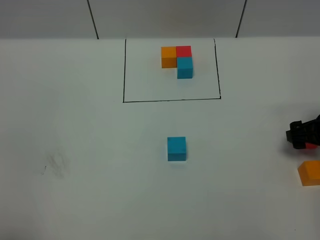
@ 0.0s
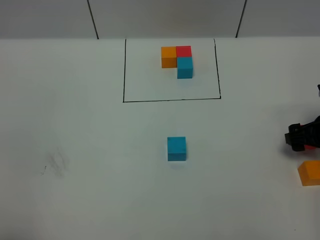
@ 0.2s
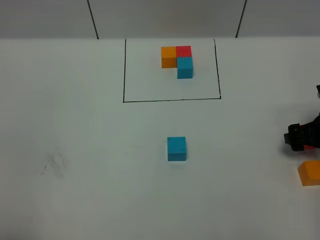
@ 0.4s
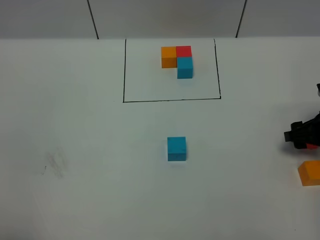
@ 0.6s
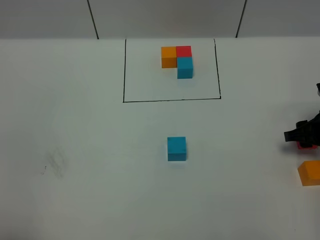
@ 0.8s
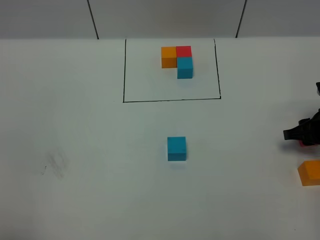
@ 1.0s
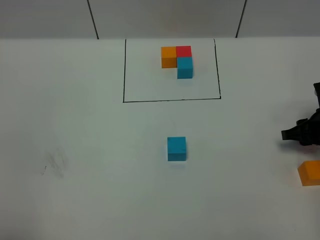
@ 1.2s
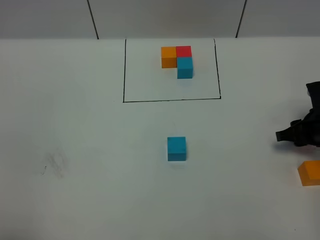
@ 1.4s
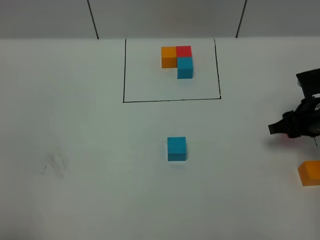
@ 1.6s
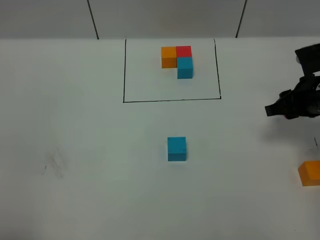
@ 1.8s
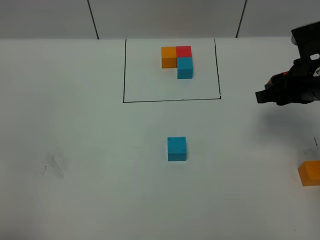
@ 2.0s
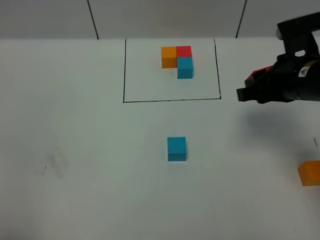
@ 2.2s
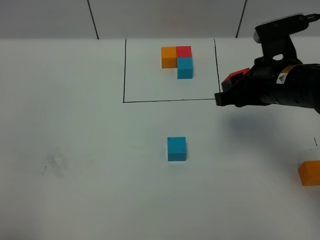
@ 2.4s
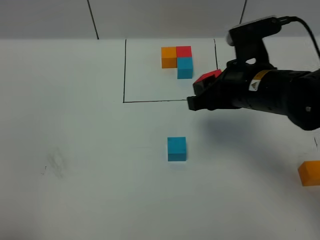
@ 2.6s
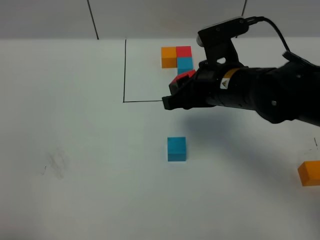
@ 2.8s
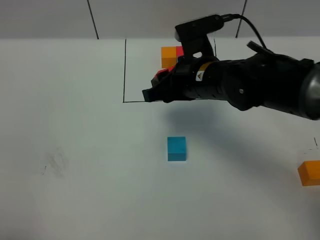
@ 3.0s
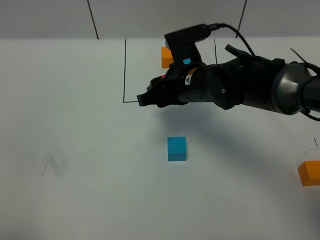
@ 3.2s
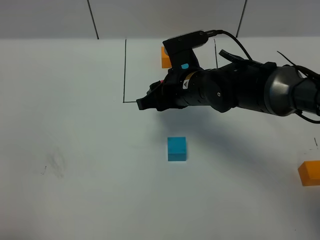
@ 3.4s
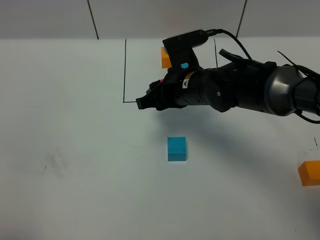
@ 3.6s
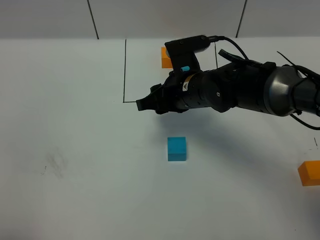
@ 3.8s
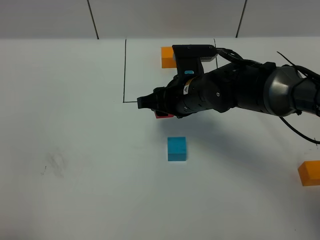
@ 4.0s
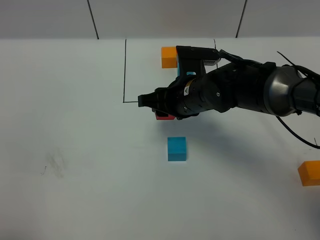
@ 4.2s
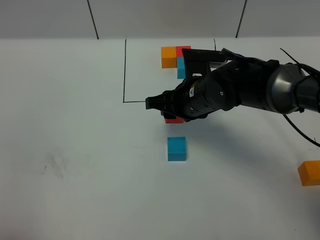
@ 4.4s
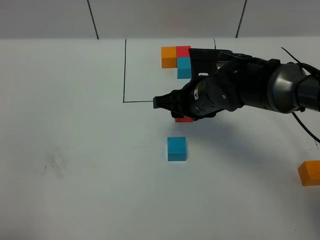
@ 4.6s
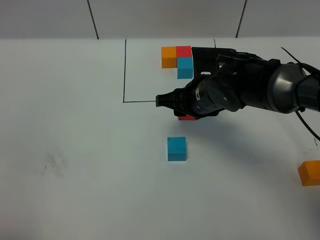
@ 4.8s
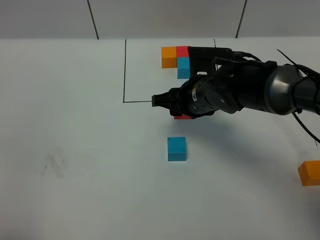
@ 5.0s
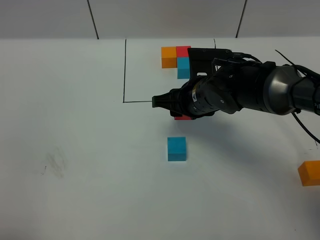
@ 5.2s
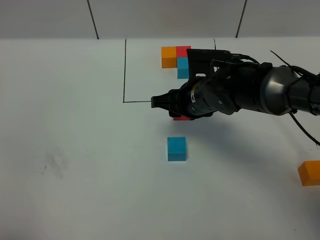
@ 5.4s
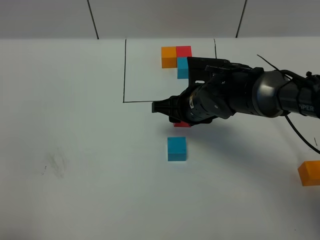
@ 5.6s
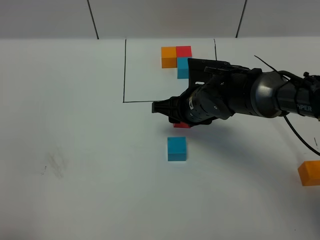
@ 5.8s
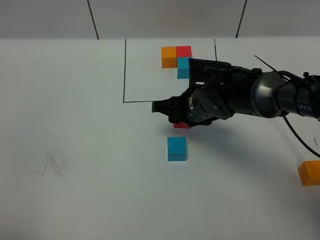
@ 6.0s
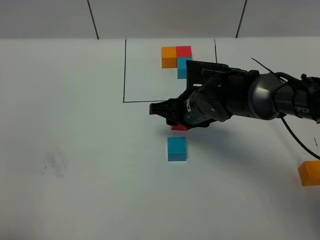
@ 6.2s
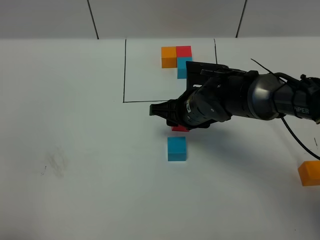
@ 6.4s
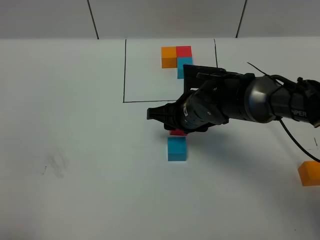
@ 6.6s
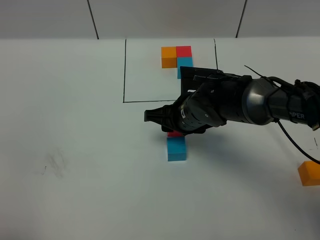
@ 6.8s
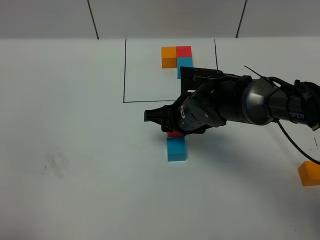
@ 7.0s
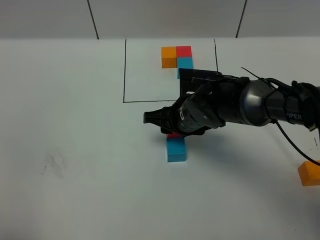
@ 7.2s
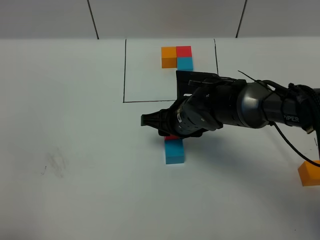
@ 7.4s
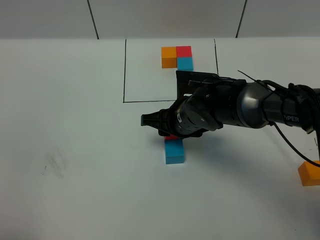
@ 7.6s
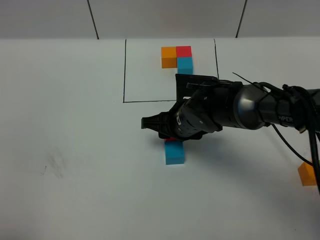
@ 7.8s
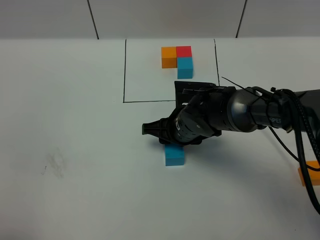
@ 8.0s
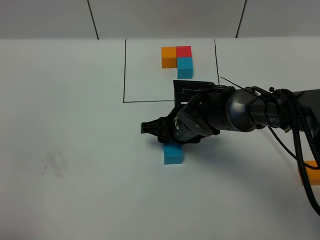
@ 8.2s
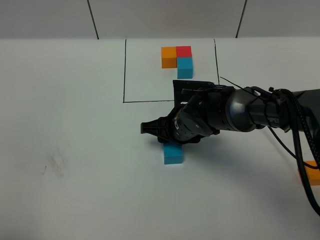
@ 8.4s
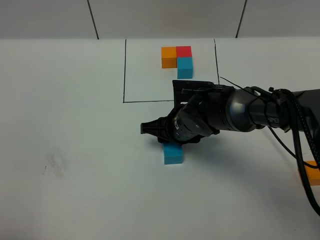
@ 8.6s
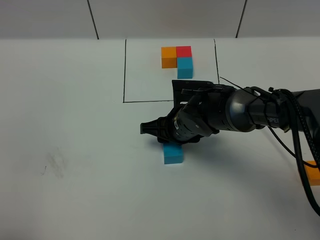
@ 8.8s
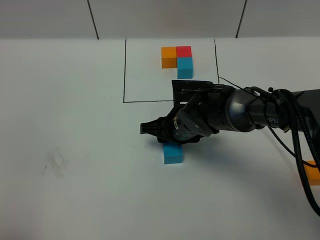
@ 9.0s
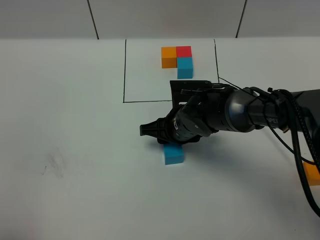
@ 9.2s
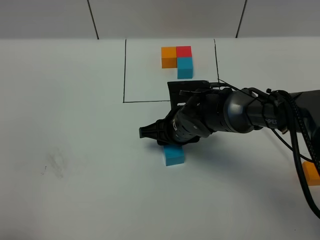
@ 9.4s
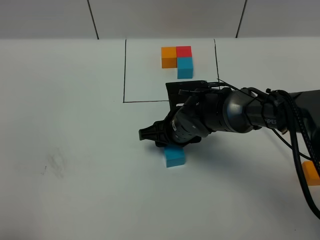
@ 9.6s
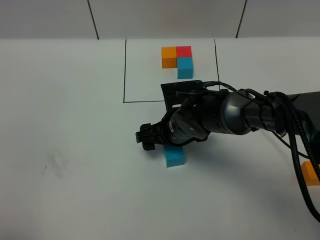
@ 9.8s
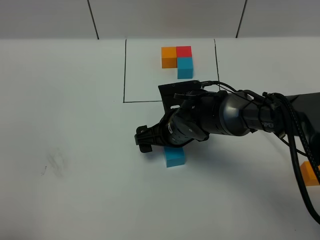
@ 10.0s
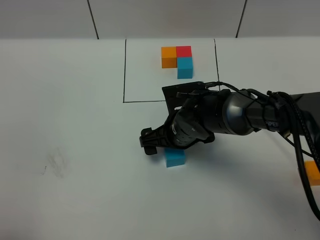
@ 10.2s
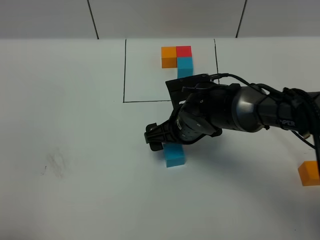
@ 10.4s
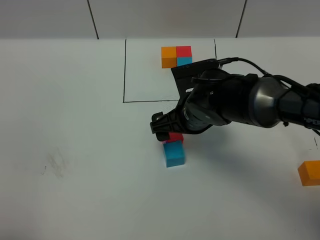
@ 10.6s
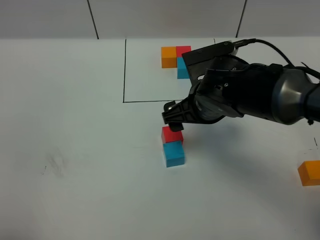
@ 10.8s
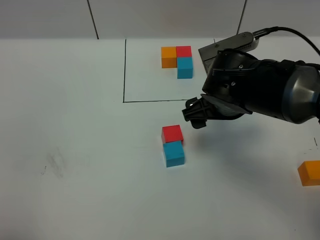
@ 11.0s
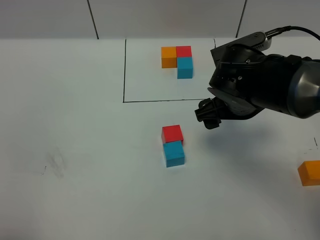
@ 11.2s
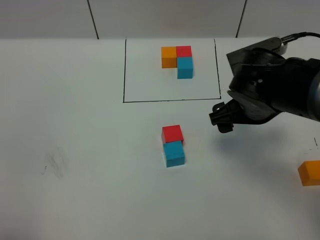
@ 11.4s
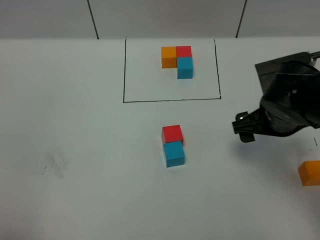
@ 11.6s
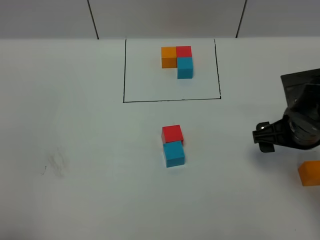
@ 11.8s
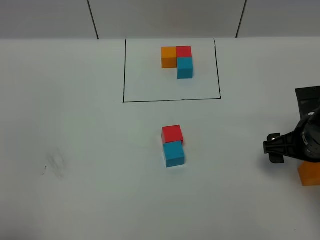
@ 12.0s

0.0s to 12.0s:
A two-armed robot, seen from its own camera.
Task of the whole recording: According to the building block template in front, assemble the scattered blocks together.
Step, 0.0s to 10.8s: Put the red cube on the behind of the blue cube.
0.0s to 1.6s: The right gripper closes its fingers.
1.6s to 3.0s: The right gripper heads to the left and upward, covering roughly 25 cm.
3.0s to 4.4s: The right gripper shifts roughly 5 cm downward.
4.4s to 7.6s: There are only small adjustments of the grippers.
7.6s to 9.0s: The grippers make only small movements.
9.0s to 10.4s: The right gripper opens up.
10.4s to 12.0s: The right gripper is displaced to the right by roughly 20 cm.

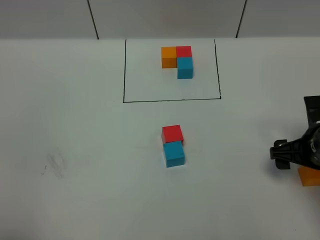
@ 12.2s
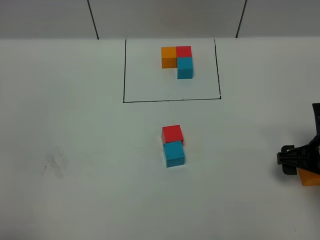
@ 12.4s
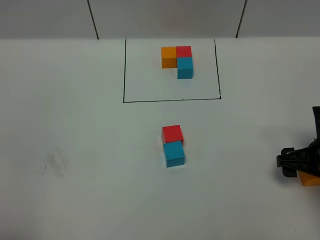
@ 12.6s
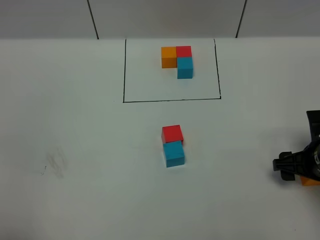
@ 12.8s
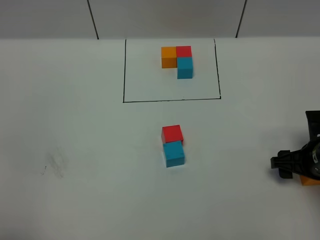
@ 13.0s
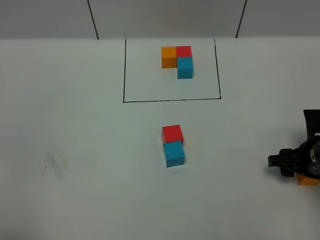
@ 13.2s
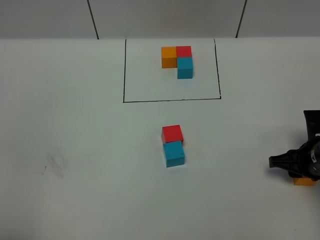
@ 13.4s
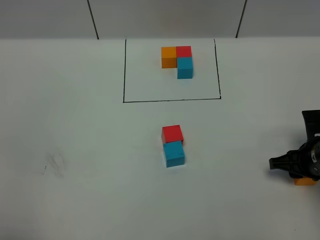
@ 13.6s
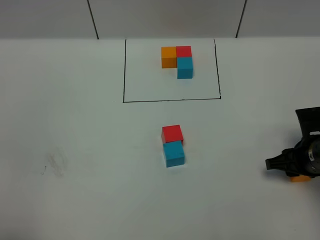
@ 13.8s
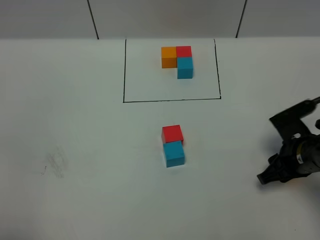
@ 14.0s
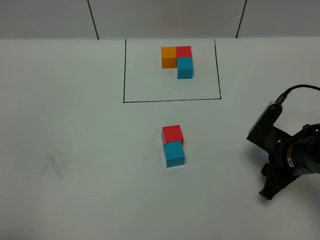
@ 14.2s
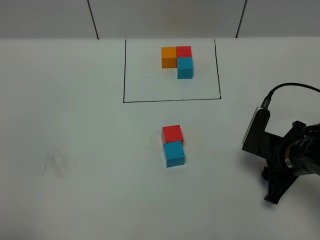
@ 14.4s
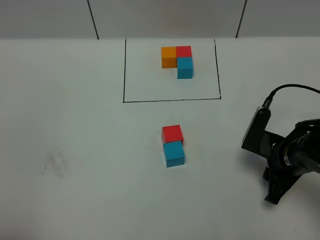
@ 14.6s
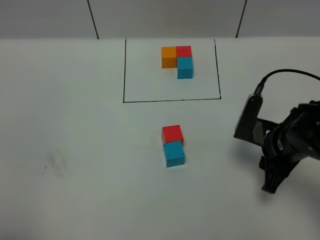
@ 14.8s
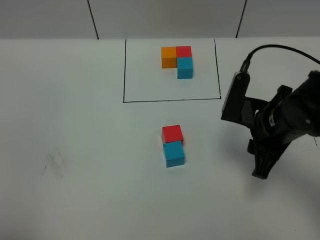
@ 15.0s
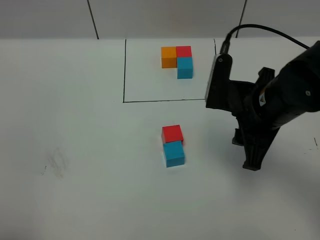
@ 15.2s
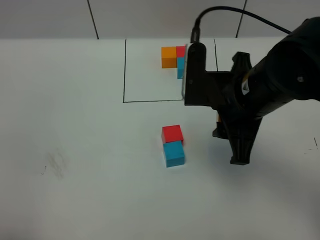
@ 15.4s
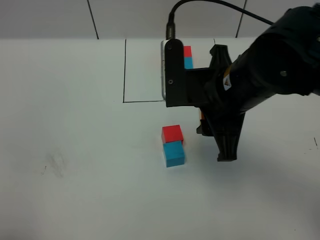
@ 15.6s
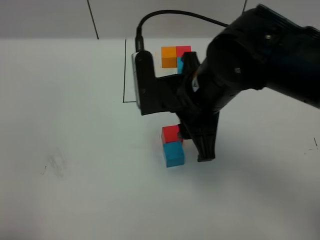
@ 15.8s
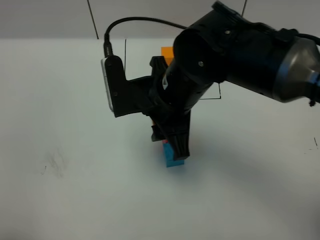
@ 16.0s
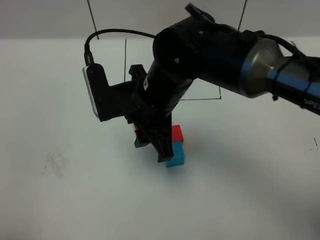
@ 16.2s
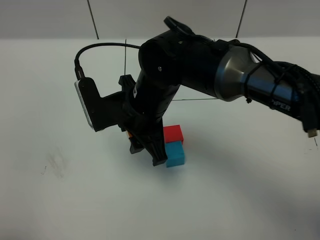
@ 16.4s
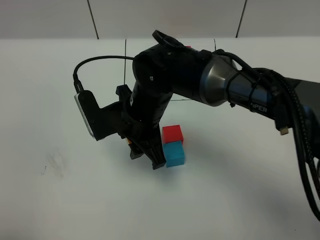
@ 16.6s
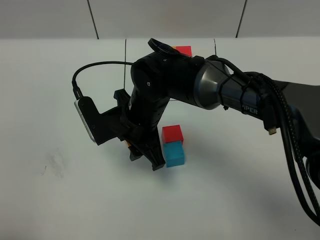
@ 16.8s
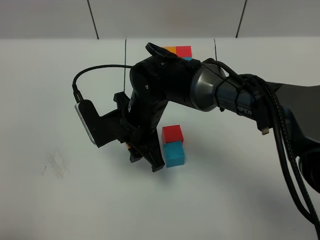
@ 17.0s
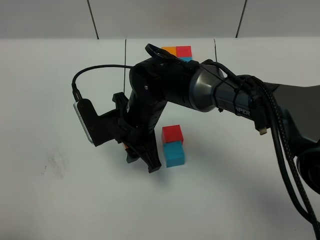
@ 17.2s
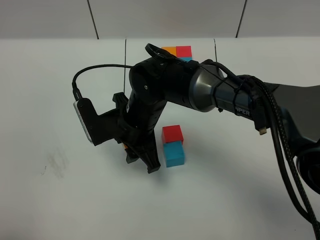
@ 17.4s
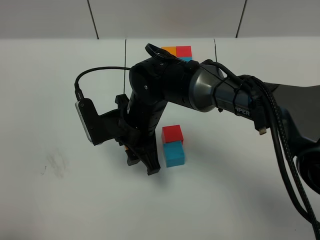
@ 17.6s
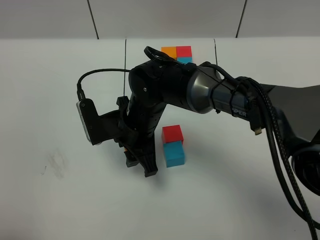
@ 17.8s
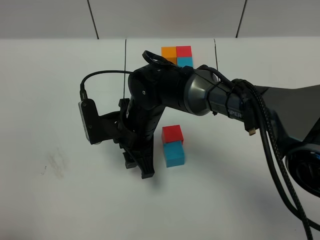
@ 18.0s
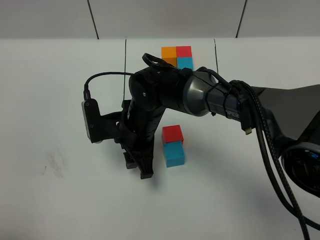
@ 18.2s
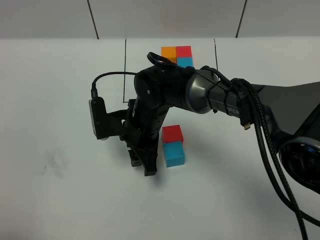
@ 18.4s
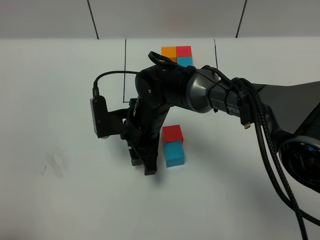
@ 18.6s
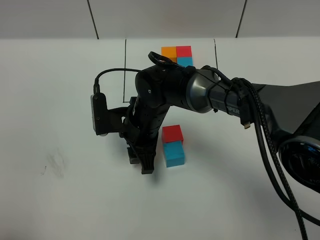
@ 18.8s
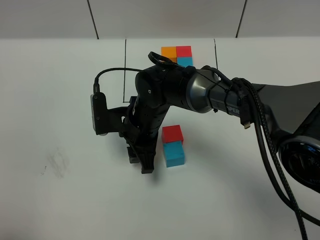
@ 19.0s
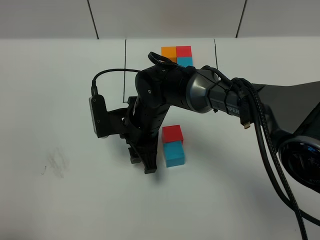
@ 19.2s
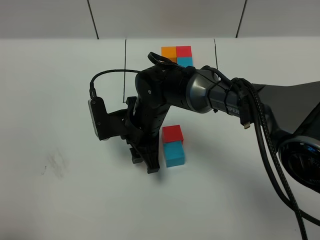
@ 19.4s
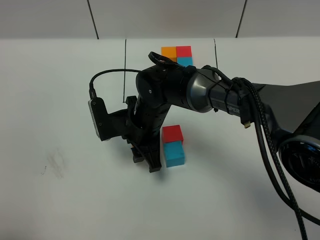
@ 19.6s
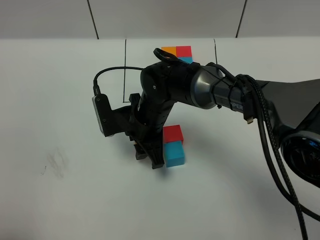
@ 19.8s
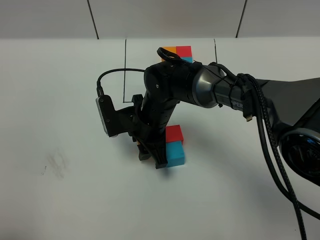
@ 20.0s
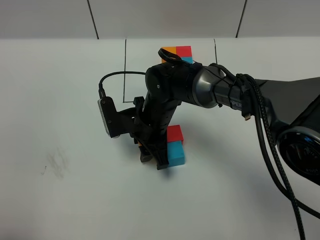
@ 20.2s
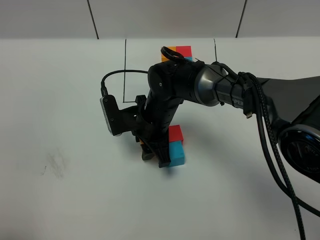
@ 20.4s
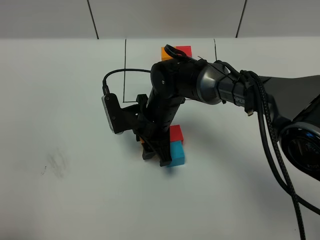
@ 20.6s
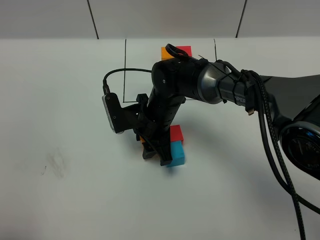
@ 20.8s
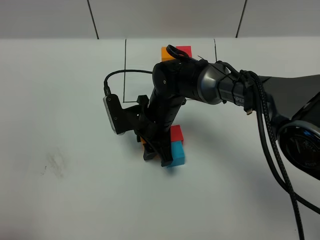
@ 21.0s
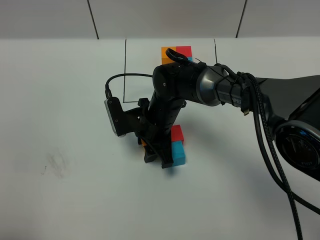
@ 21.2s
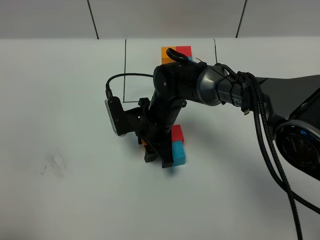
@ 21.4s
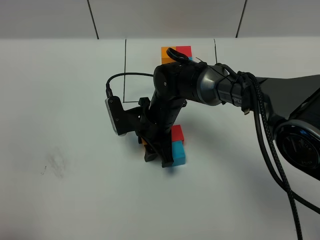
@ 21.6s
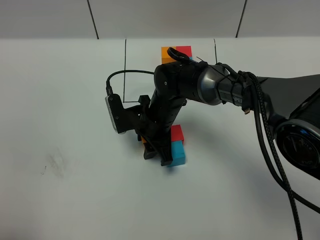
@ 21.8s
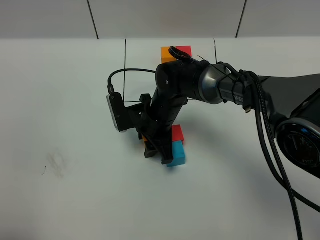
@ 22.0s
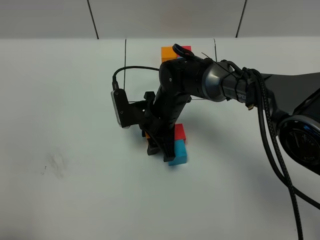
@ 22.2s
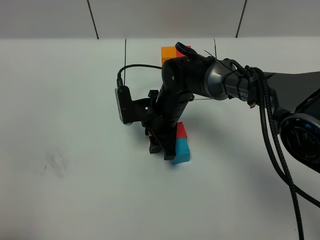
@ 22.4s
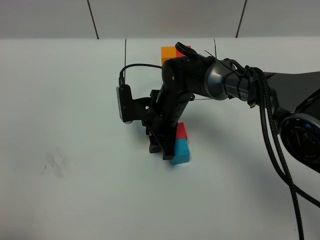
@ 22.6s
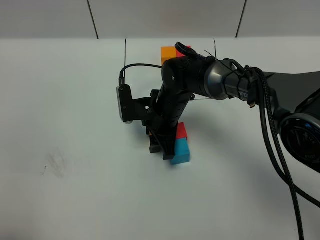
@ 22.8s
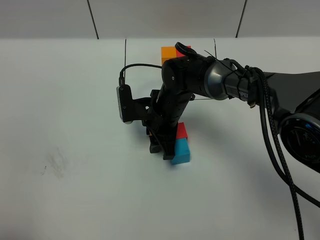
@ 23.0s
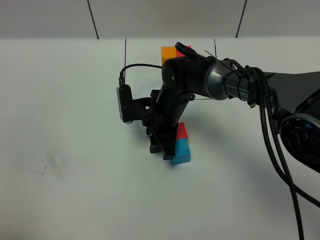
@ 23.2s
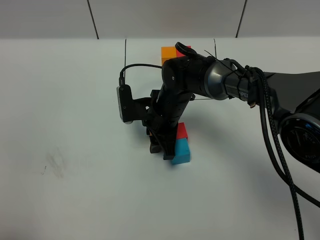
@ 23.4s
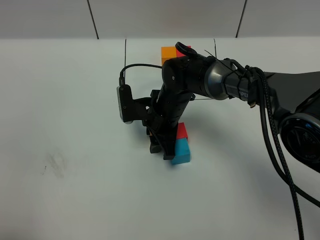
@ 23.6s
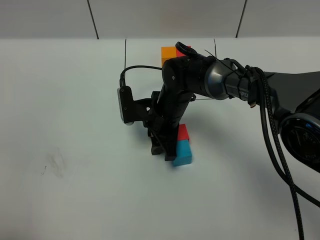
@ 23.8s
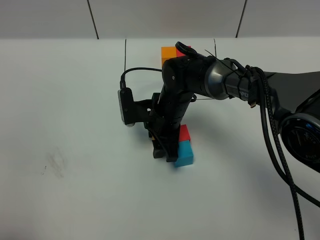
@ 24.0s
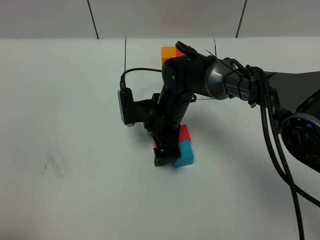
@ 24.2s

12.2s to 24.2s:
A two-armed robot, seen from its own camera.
Task of the whole recording: According to the building block template in front, assemble the scattered blocks together.
12.2s to 13.8s: The right gripper closes.
13.8s to 15.2s: The right gripper travels upward and to the left by approximately 20 cm.
15.2s to 16.6s: The right gripper travels to the left by some 20 cm.
16.6s to 18.2s: The right gripper moves some 5 cm.
18.2s to 21.2s: There are only small adjustments of the grippers.
21.2s to 22.6s: The grippers stay close to where they were, moving slightly.
22.6s to 24.2s: The right gripper opens.
